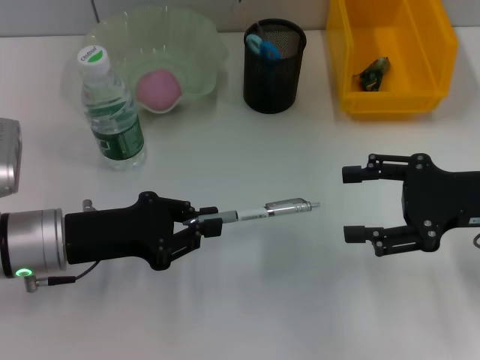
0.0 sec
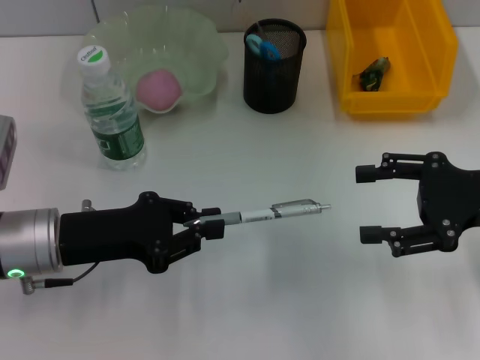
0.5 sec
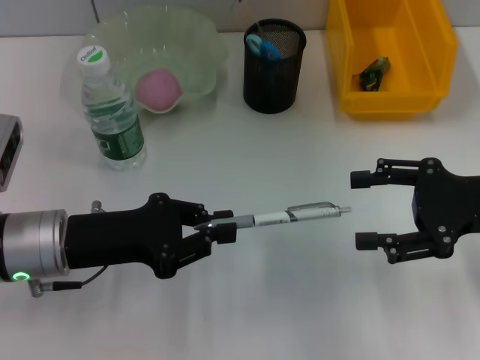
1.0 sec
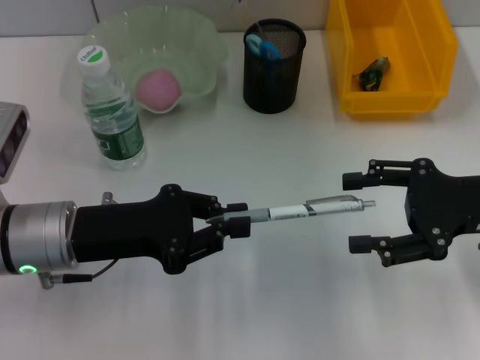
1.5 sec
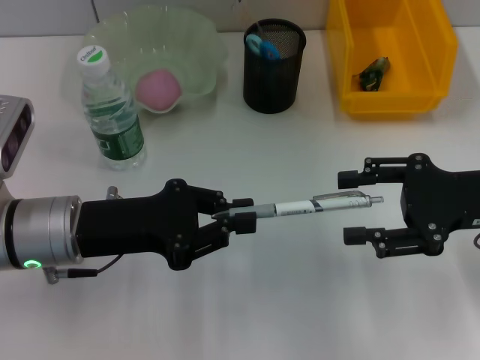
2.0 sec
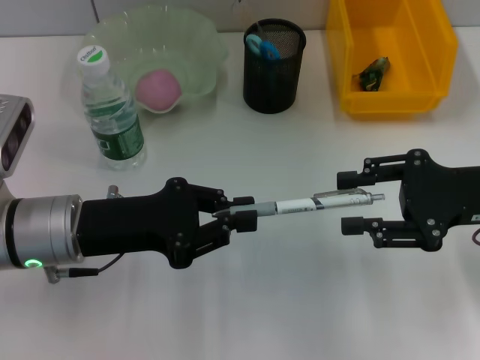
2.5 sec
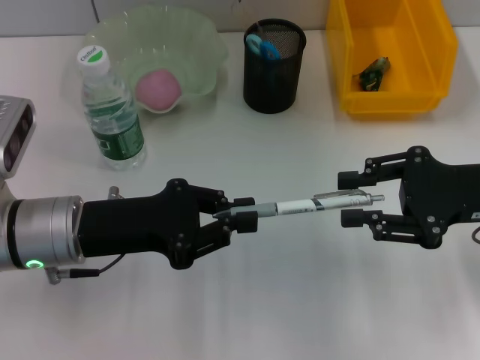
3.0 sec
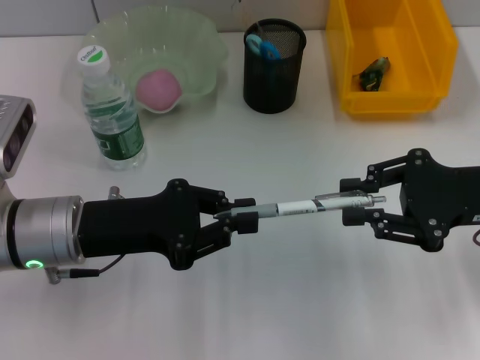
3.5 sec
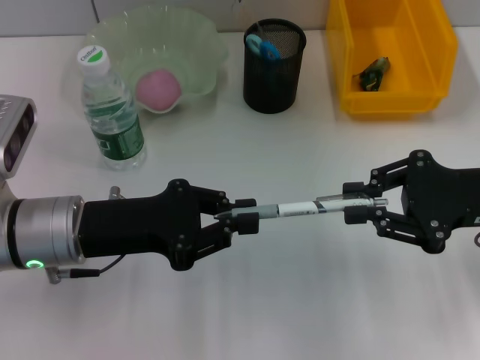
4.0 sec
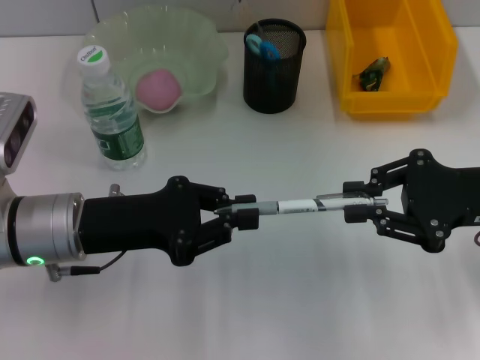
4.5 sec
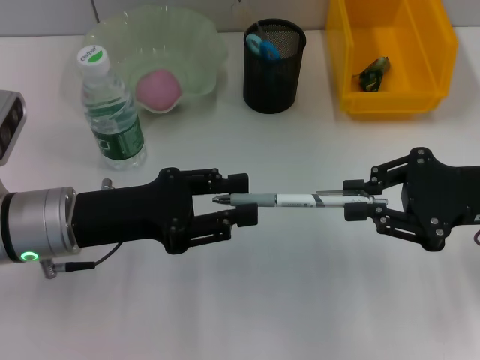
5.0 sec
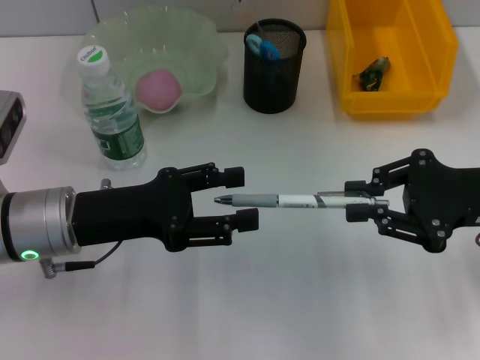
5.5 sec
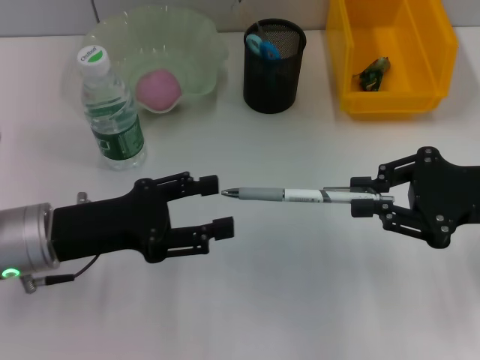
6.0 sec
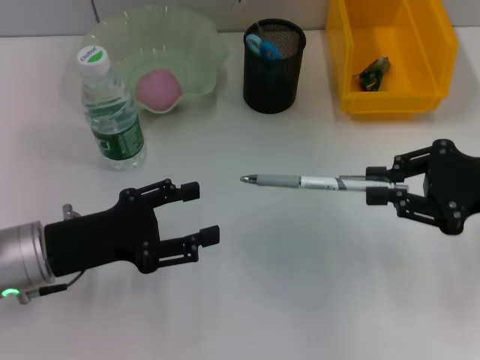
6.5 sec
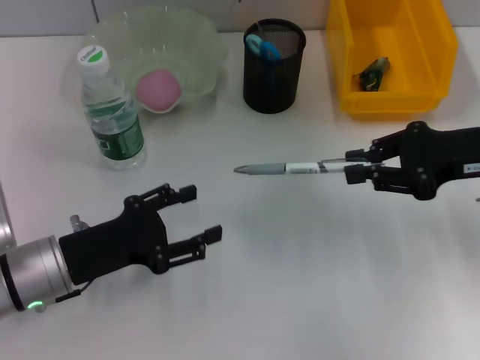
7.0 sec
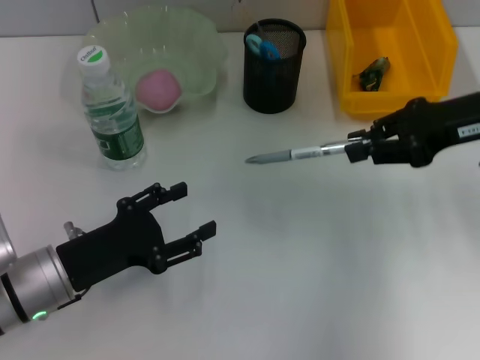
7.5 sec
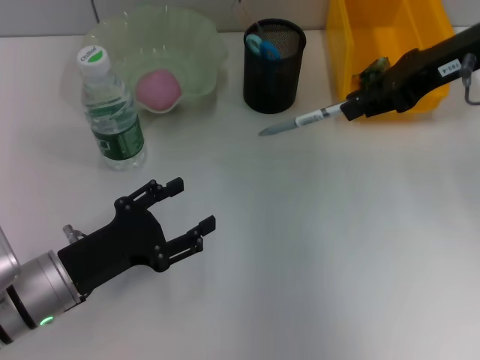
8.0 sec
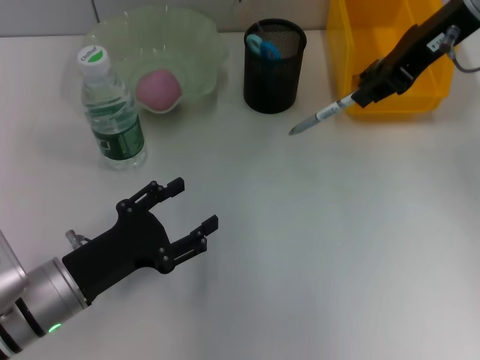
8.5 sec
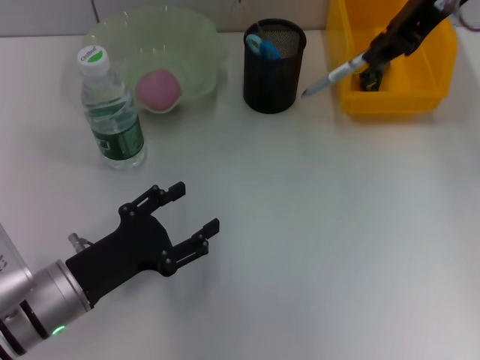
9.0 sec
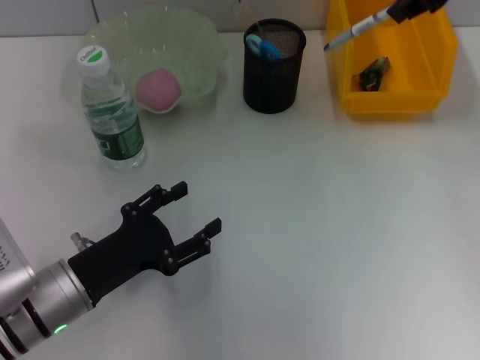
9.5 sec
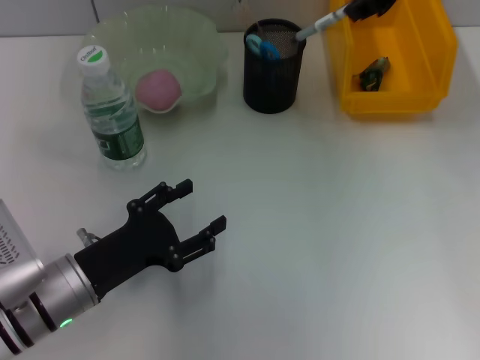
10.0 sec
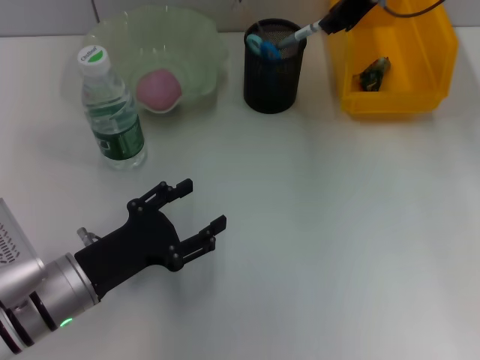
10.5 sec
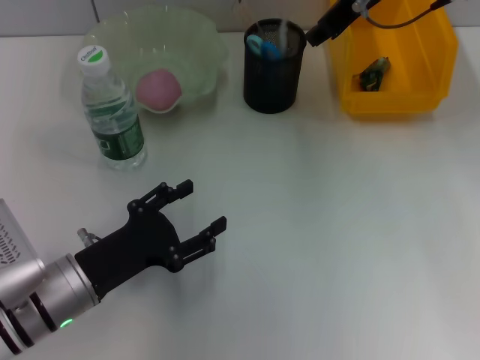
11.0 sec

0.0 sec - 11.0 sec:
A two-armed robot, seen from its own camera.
Step, 0.0 sec - 5.0 sec: Pass the gray spring-action pen from the left hand to the right hand.
0.0 sec - 2.0 sec: The grippers stay close to where they were, moving slightly.
2.0 sec - 3.5 sec: The right gripper closes up.
3.5 sec - 5.5 sec: The left gripper opens its fingers.
5.5 sec - 7.5 sec: The right gripper goes some 10 cm forward and upward; the left gripper heads downward, covering approximately 5 cm.
7.5 sec - 9.0 sec: The right gripper goes about 15 cm upward, to the left and forward.
9.0 sec - 11.0 sec: The right gripper travels downward by approximately 5 cm.

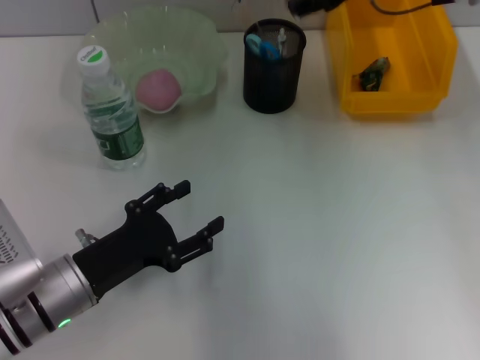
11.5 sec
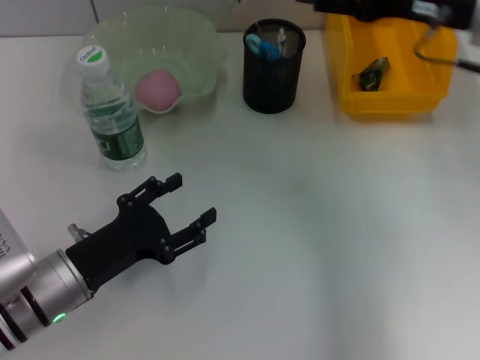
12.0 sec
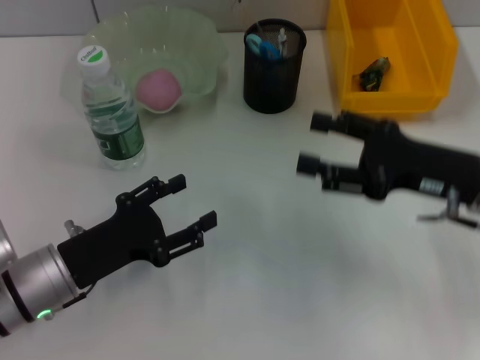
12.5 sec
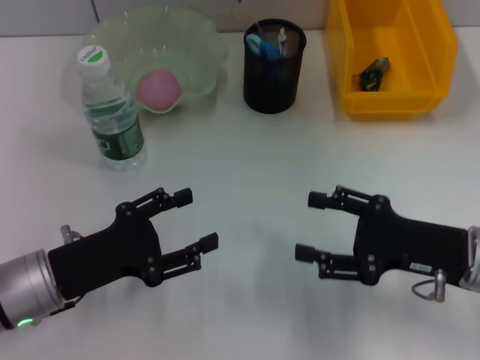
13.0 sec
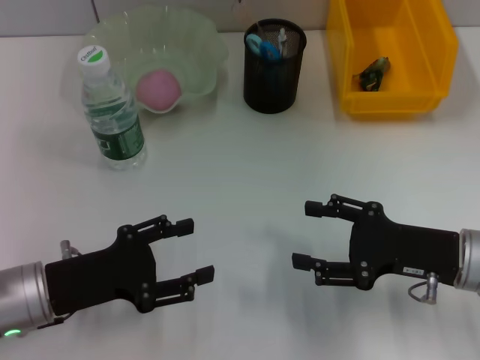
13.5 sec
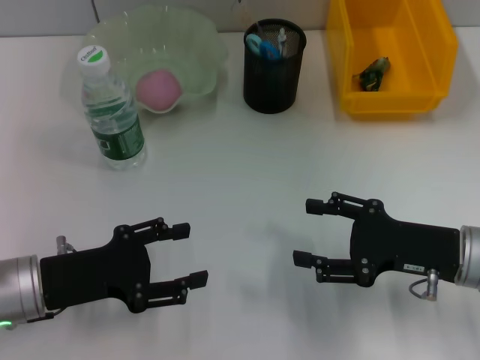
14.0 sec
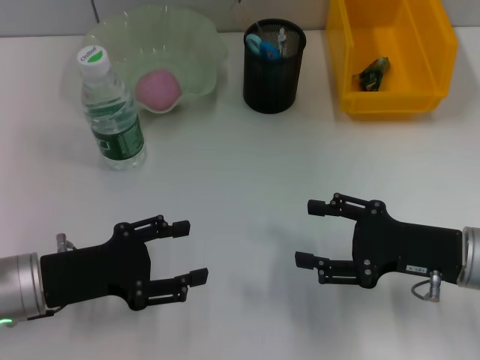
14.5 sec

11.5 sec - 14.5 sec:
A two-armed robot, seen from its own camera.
11.5 sec - 13.0 sec: The right gripper shifts approximately 30 cm downward and backward.
13.0 sec - 14.5 sec: The grippers move only a little.
